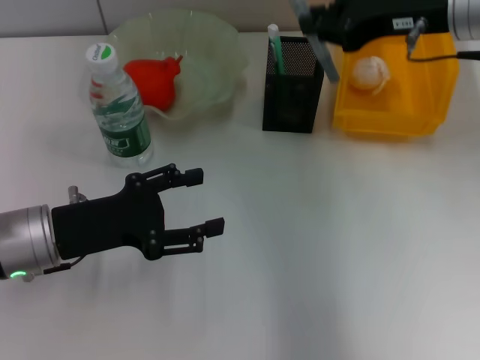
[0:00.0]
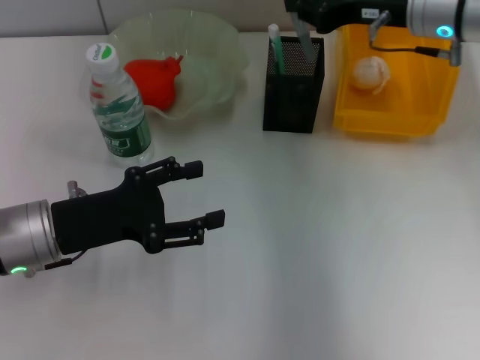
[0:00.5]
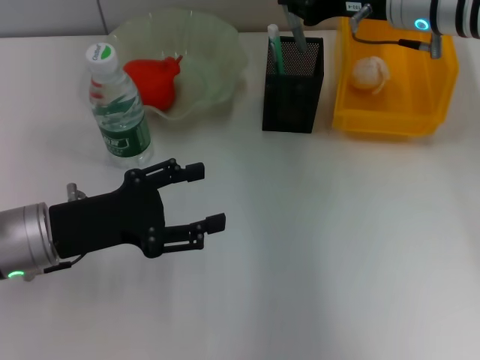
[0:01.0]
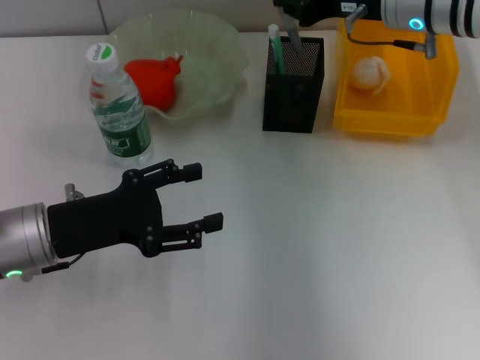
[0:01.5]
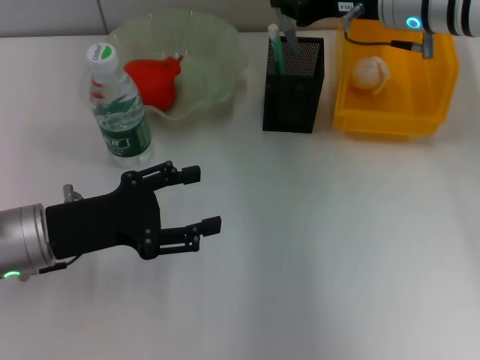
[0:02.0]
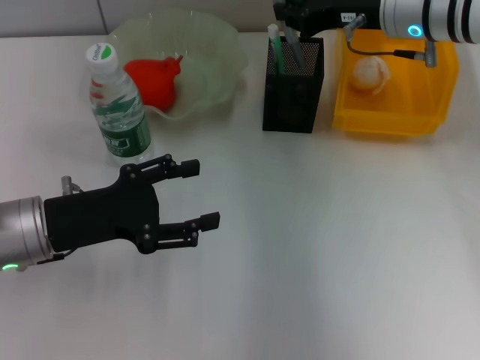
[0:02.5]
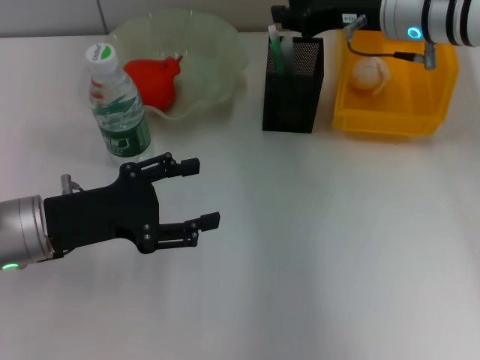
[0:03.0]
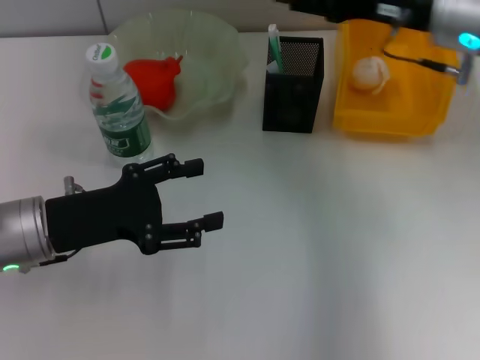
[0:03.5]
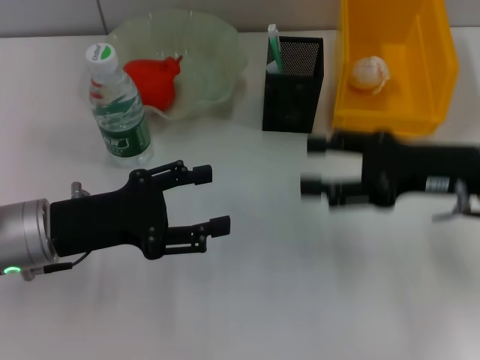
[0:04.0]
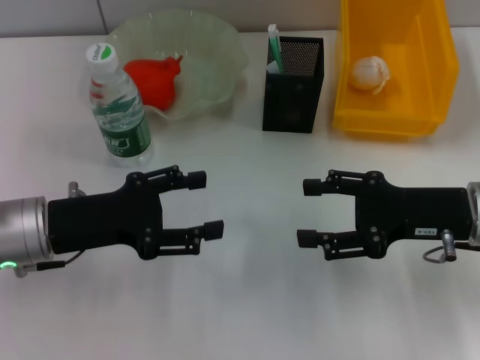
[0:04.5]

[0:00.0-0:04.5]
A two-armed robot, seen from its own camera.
Step, 0:00.0 to 0:03.0: Place the gray glue into the pen holder with the right hand.
0:00.0 to 0:02.0: The right gripper shifts some 5 cm forward.
0:02.0 to 0:04.5: The right gripper is displaced backward, downward and to the right by about 20 cm, and opens up.

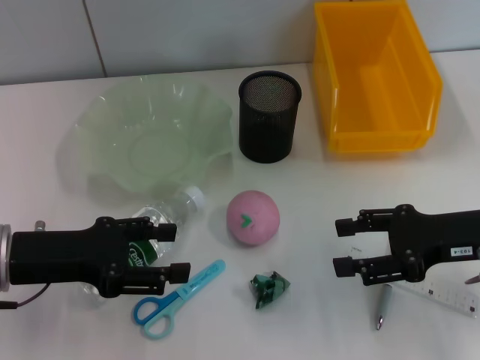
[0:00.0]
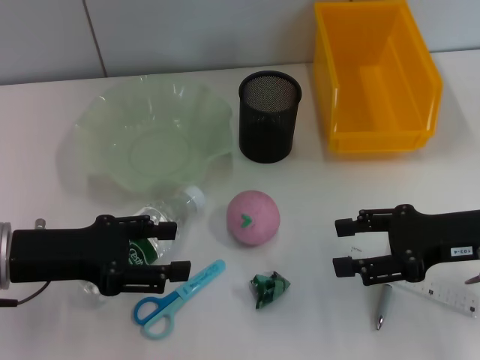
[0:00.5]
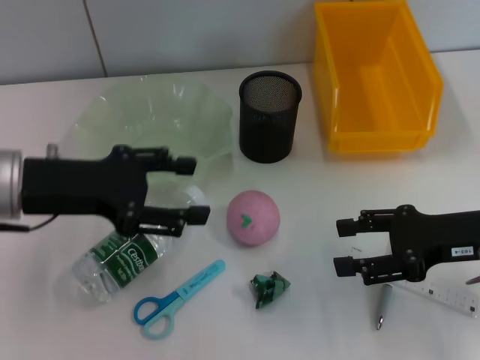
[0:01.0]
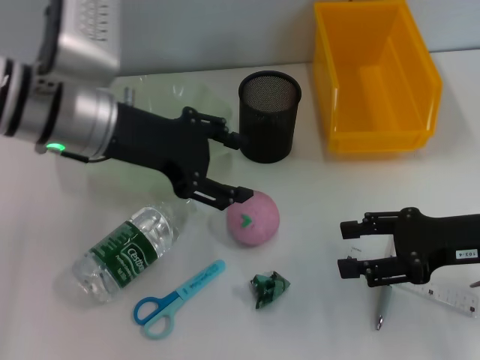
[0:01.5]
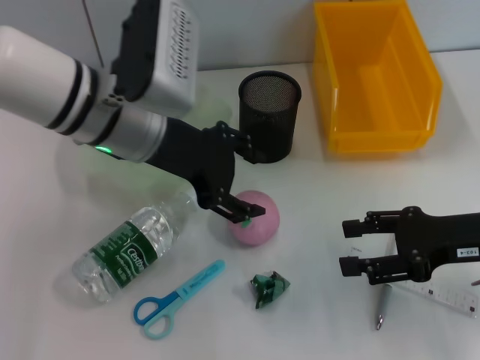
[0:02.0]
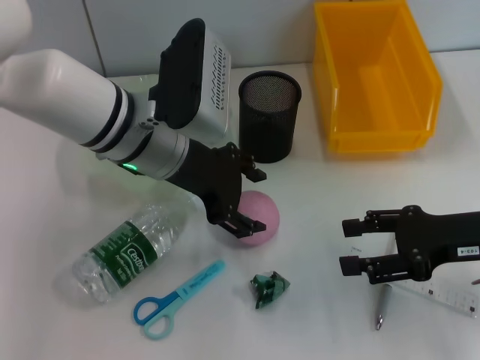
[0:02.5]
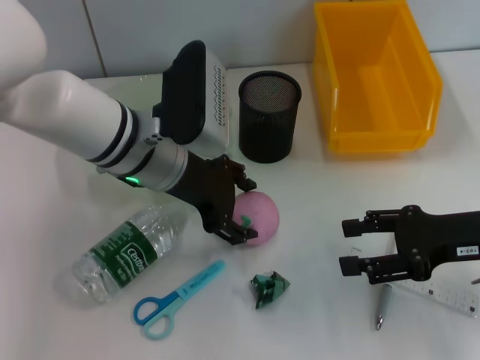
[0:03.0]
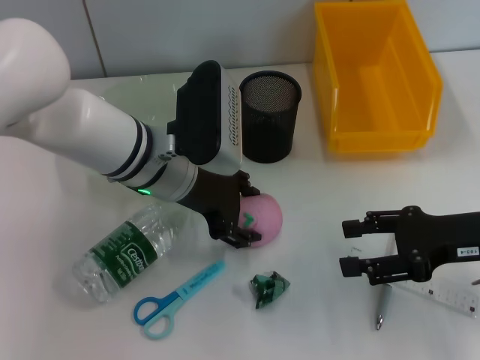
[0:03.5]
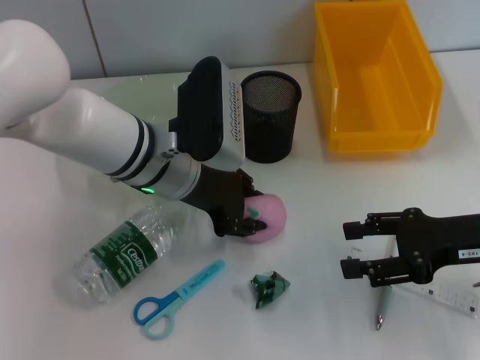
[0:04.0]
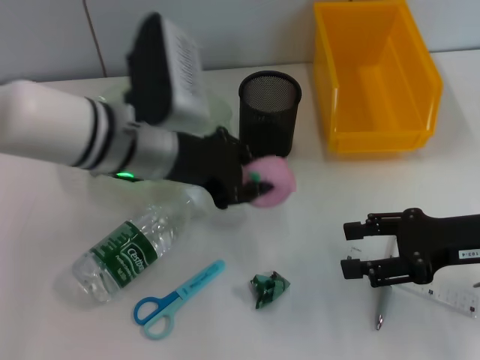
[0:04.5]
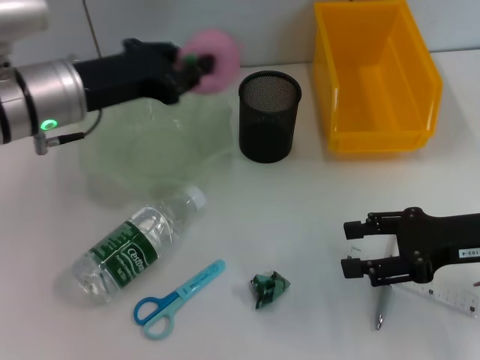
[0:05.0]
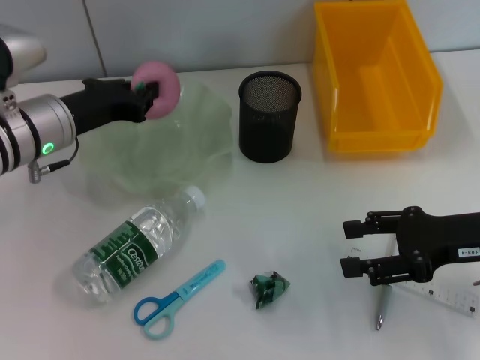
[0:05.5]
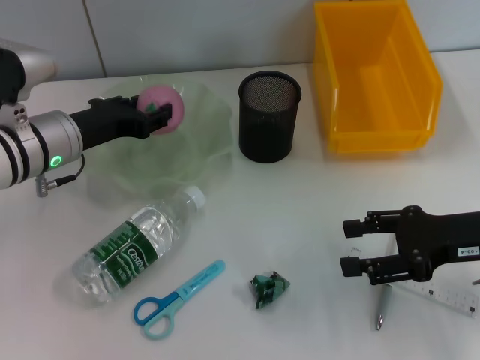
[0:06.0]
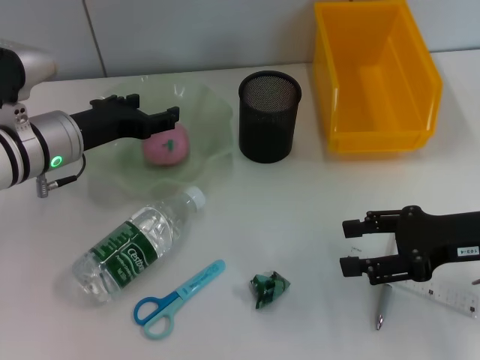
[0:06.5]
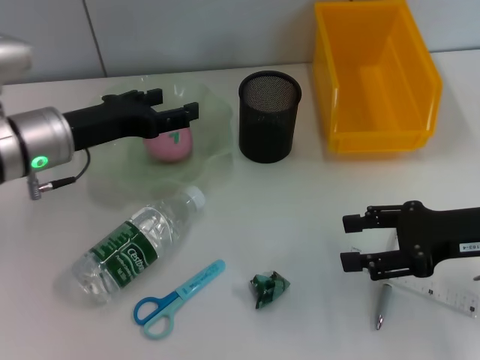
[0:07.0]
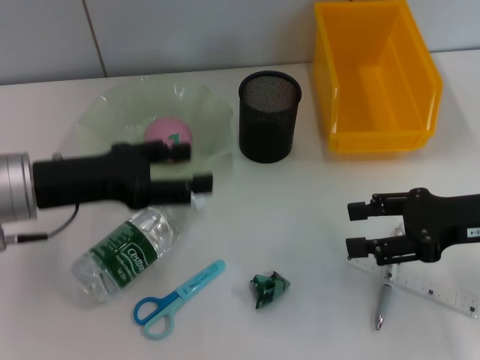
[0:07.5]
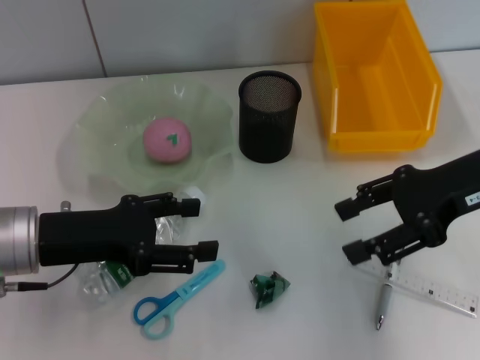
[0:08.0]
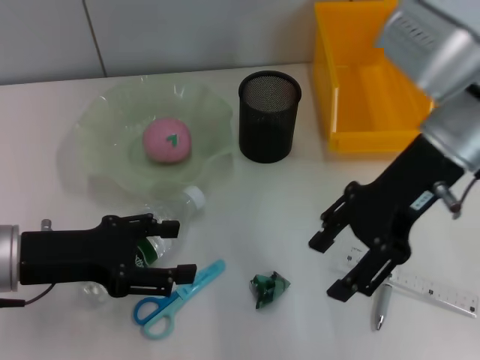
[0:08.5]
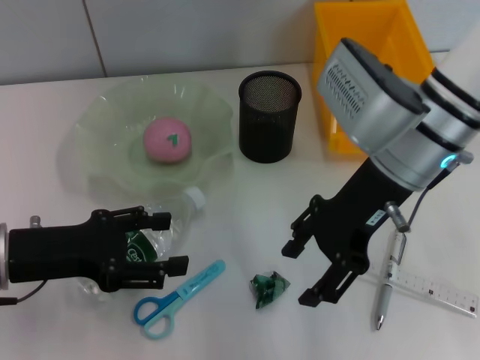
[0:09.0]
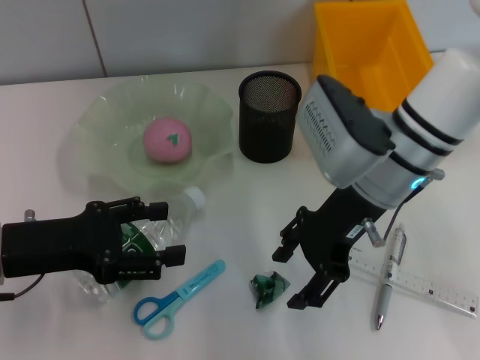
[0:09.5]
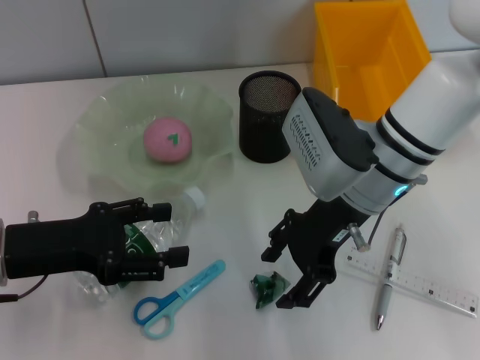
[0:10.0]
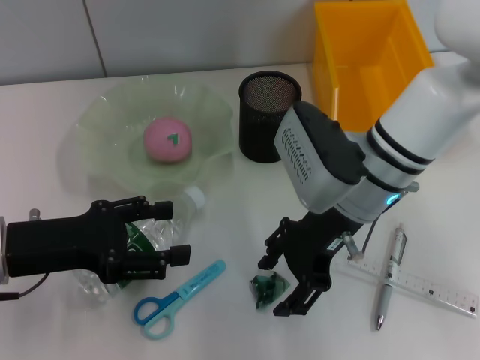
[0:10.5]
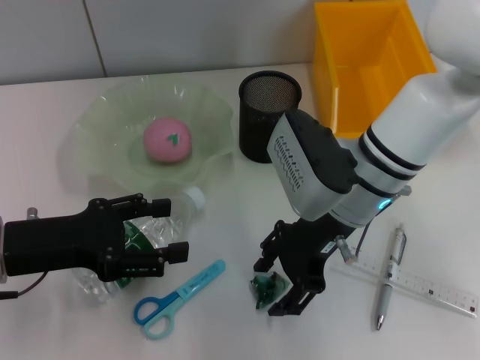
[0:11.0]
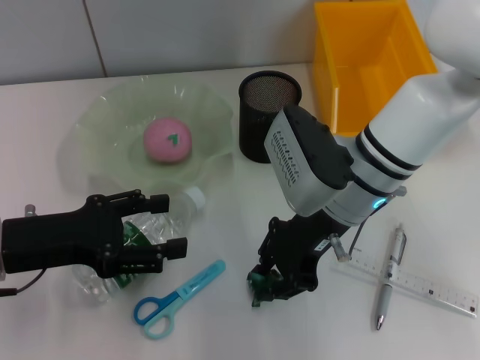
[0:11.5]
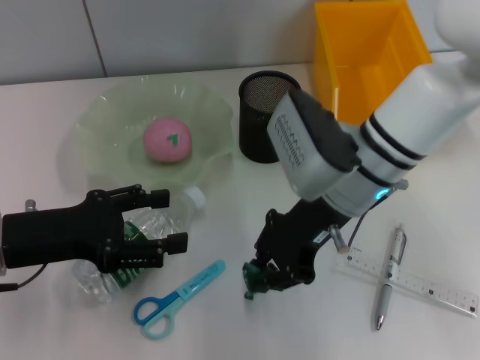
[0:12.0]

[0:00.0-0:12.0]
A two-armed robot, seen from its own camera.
Step, 0:00.0 to 0:03.5: Grab the peach with the left hand.
Step, 0:04.0 to 0:06.5: Place the peach into the fruit bowl with the left hand.
Step, 0:07.0 to 0:11.5: Grab the plastic with the right hand.
0:00.0 to 0:02.0: The left gripper is displaced to the right, forward and upward by roughly 20 cm.
0:02.0 to 0:04.0: The left gripper moves downward, roughly 5 cm, and closes its fingers.
0:04.0 to 0:06.0: The left gripper travels to the left by approximately 10 cm.
0:06.0 to 0:08.0: The right gripper heads upward, covering about 10 cm. Meanwhile the left gripper is displaced backward by some 10 cm, and opens up.
0:08.0 to 0:10.0: The right gripper travels to the left by roughly 15 cm.
0:10.0 to 0:12.0: The right gripper closes its fingers.

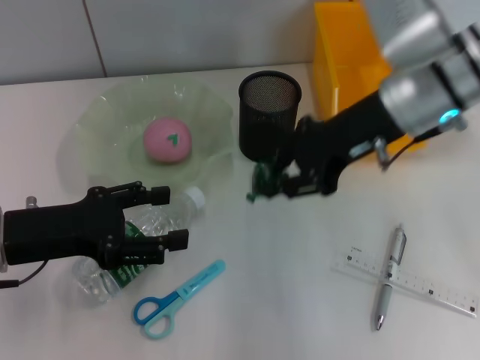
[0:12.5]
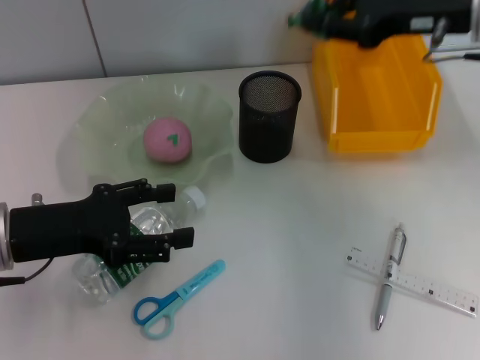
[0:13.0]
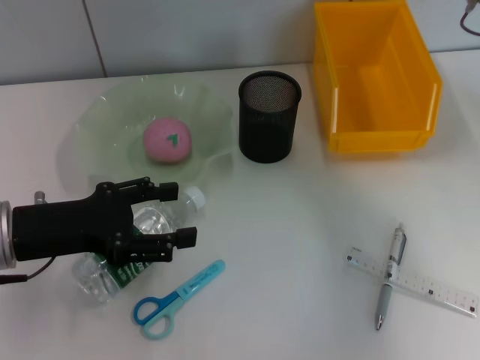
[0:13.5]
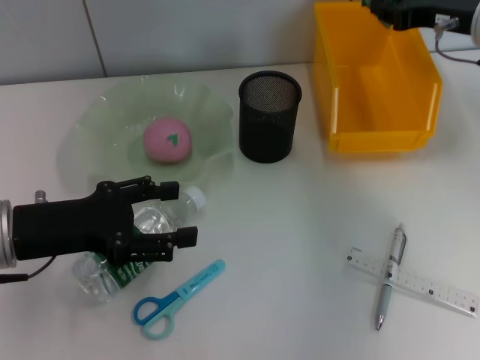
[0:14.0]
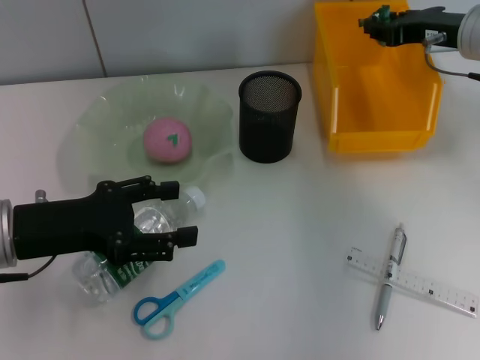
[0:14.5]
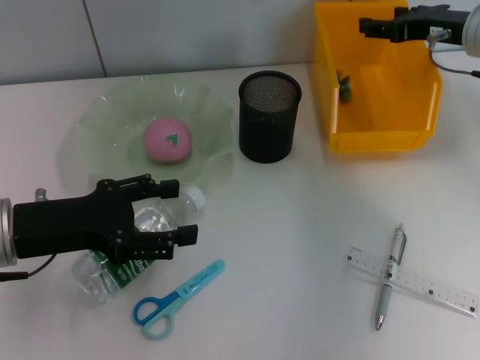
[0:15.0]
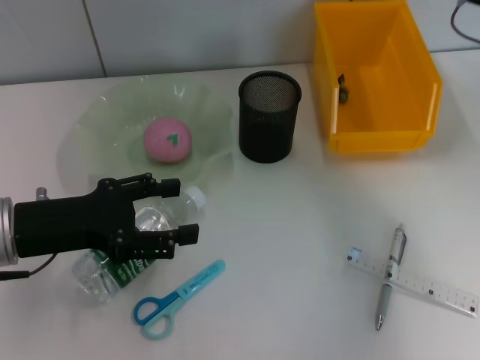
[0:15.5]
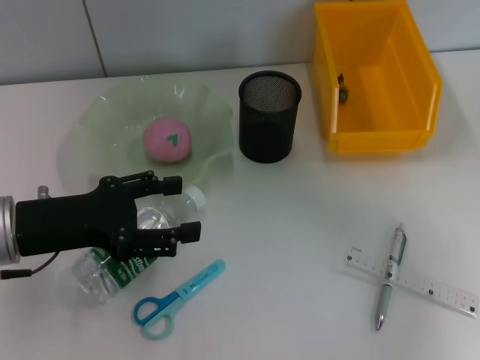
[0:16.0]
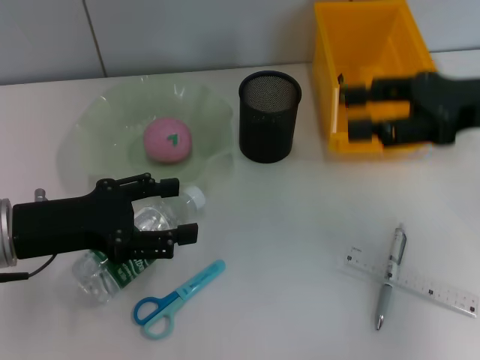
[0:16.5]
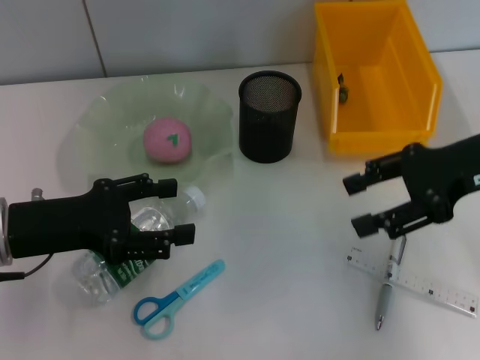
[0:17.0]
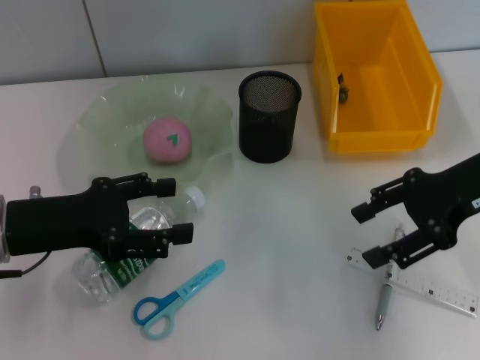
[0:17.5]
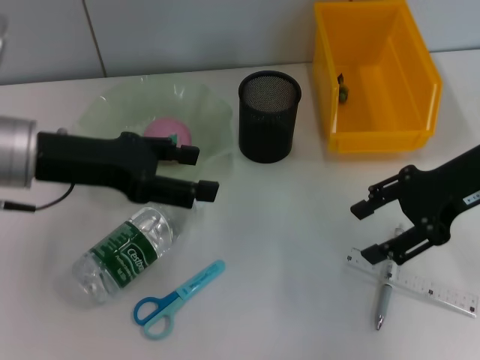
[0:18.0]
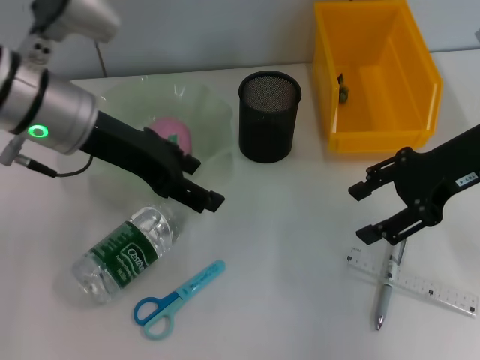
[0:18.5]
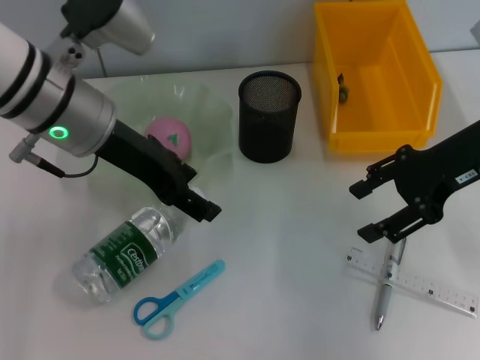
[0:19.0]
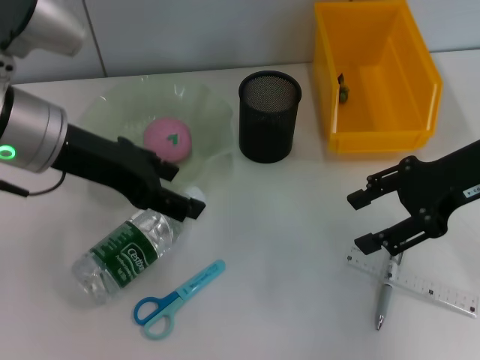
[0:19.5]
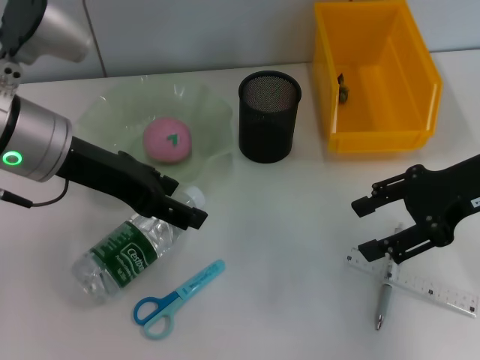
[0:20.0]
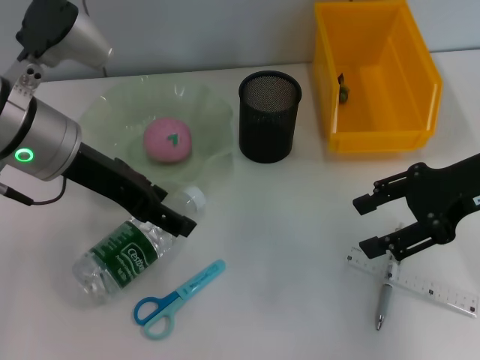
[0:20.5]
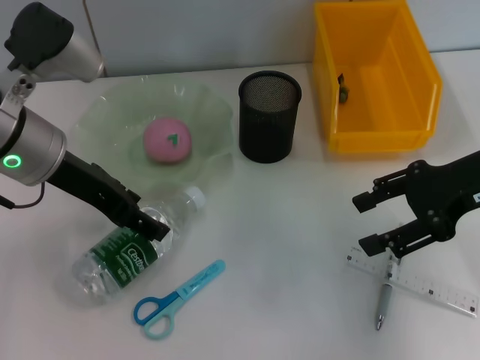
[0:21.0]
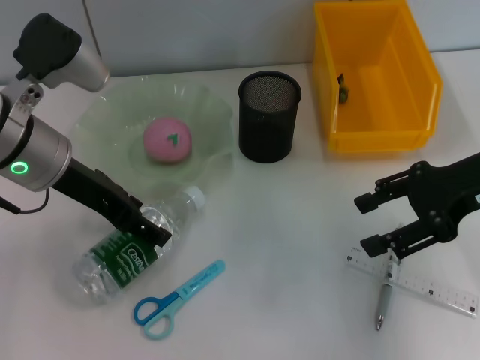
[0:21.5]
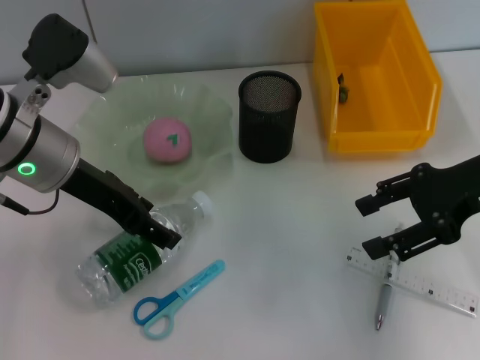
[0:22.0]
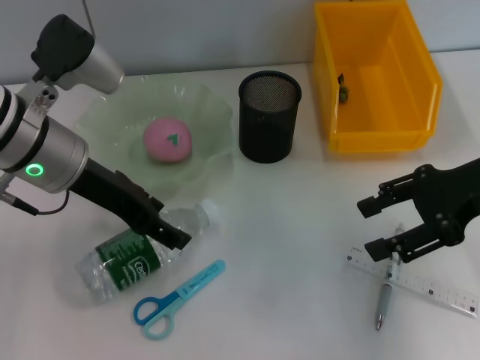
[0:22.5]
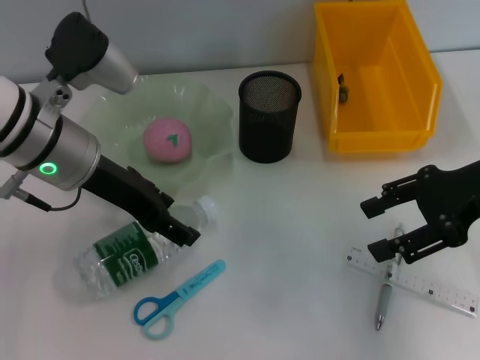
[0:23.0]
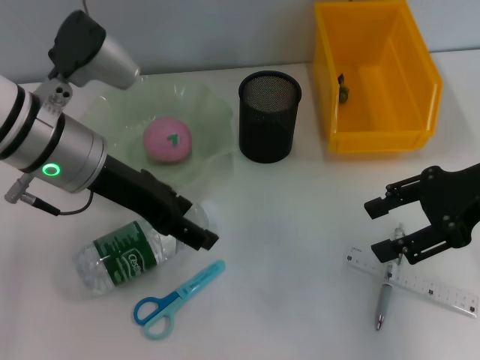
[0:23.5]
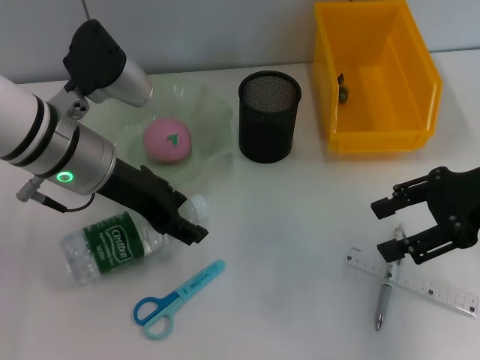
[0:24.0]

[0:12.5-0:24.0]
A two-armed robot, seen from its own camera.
Step, 0:12.5 to 0:15.0: Place the plastic into the trash can with the right hand.
0:12.5 to 0:14.5: The right gripper goes some 10 cm to the right and forward.
0:14.5 to 0:16.5: The right gripper travels backward by some 10 cm, and opens its fingers.
0:16.5 to 0:18.5: The left gripper moves upward, to the right and forward, roughly 15 cm.
0:18.5 to 0:24.0: The grippers make only small movements.
